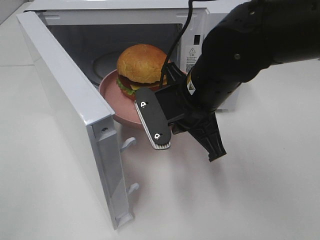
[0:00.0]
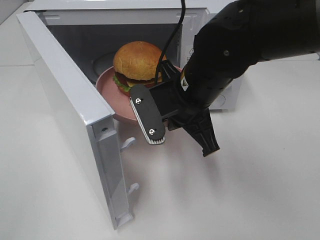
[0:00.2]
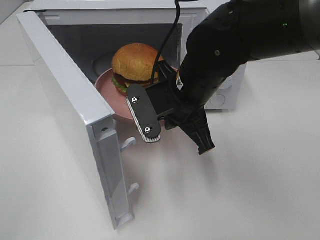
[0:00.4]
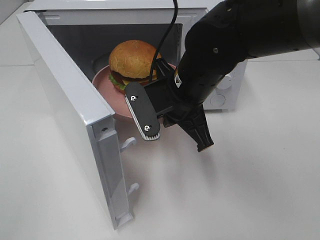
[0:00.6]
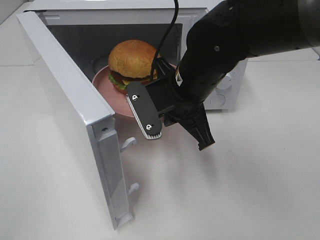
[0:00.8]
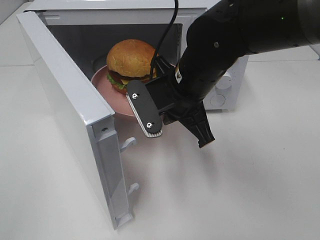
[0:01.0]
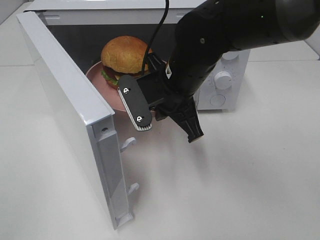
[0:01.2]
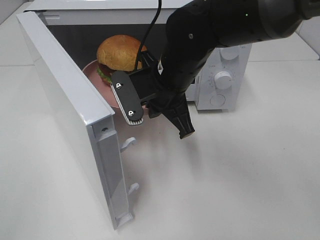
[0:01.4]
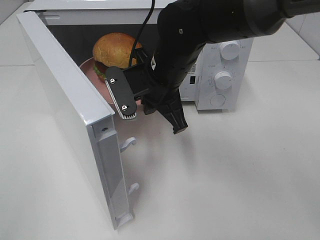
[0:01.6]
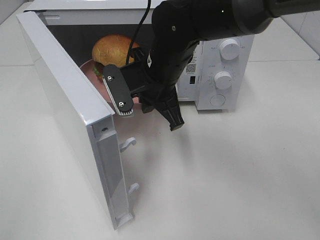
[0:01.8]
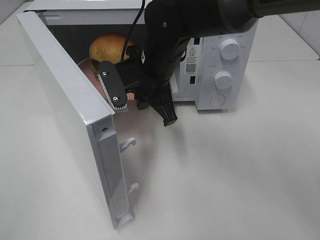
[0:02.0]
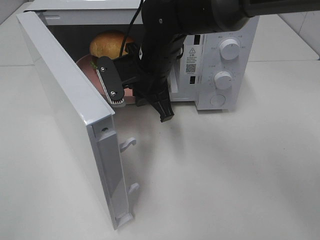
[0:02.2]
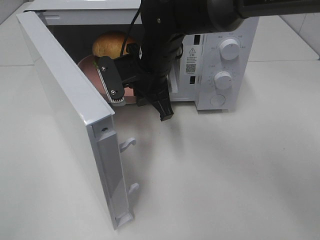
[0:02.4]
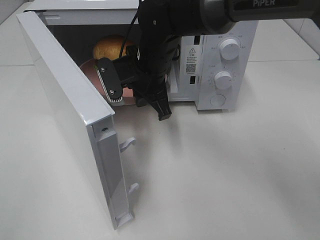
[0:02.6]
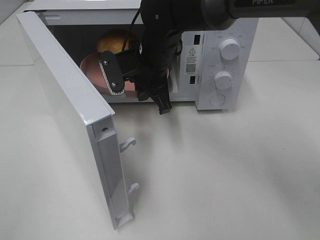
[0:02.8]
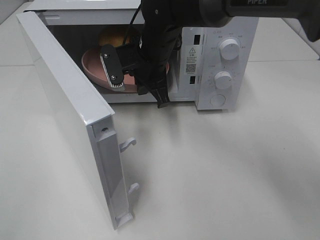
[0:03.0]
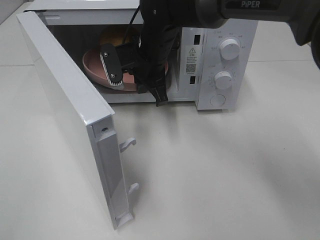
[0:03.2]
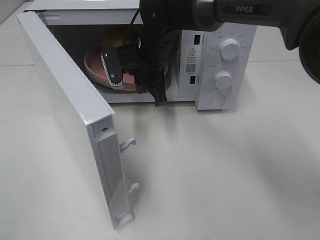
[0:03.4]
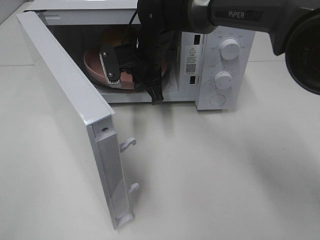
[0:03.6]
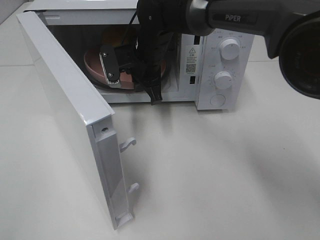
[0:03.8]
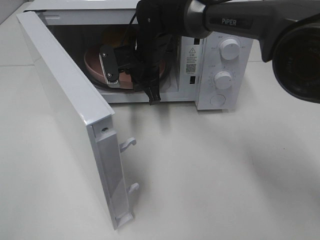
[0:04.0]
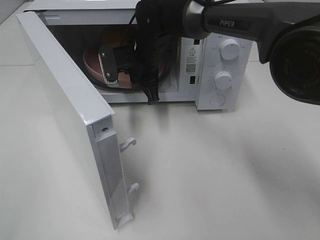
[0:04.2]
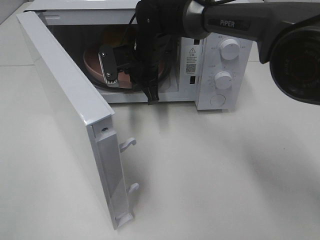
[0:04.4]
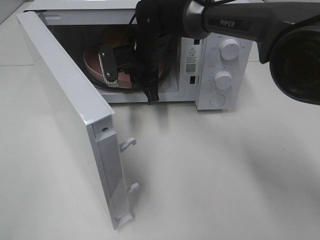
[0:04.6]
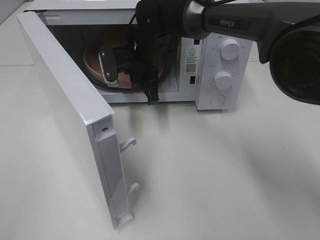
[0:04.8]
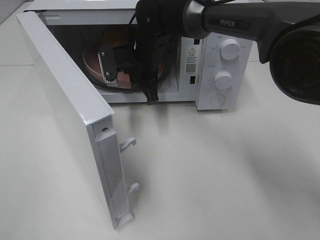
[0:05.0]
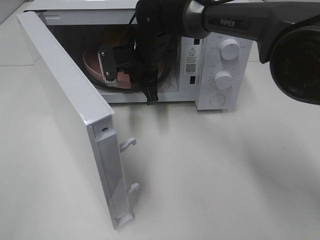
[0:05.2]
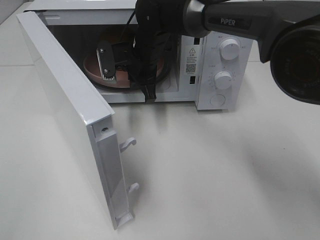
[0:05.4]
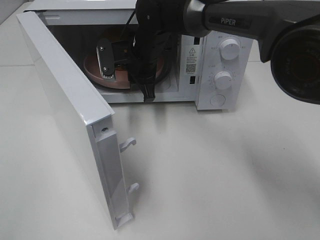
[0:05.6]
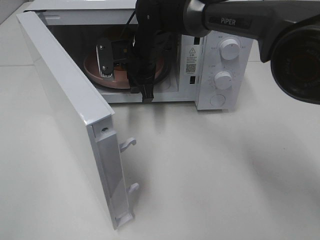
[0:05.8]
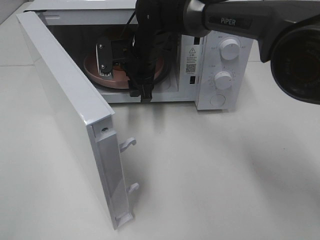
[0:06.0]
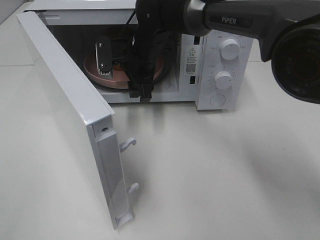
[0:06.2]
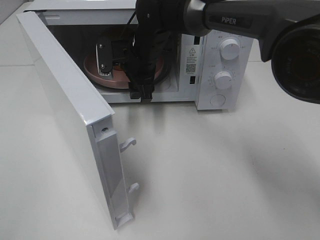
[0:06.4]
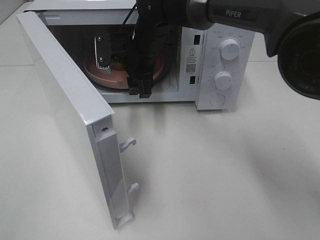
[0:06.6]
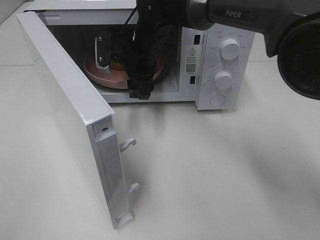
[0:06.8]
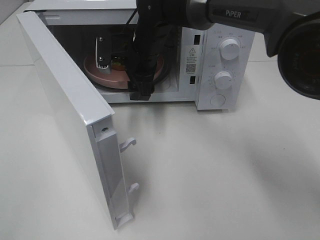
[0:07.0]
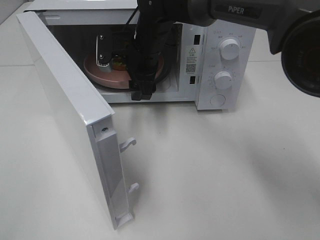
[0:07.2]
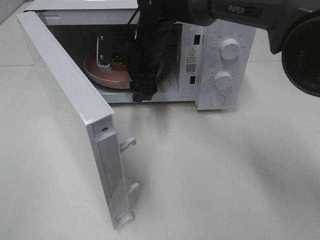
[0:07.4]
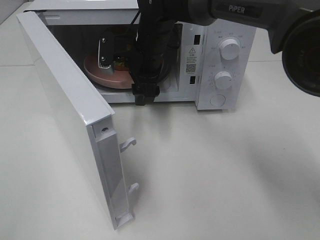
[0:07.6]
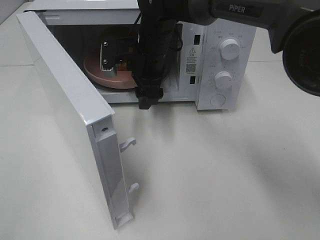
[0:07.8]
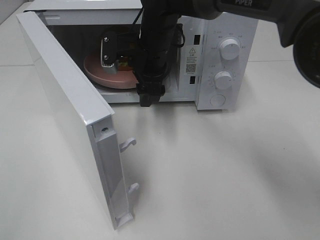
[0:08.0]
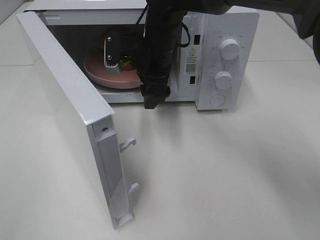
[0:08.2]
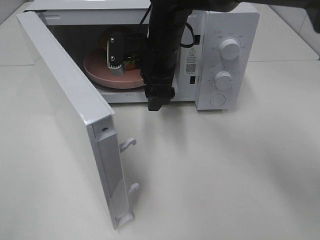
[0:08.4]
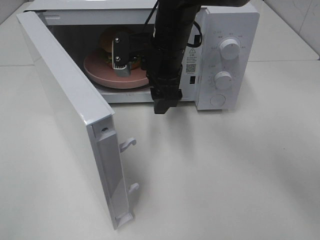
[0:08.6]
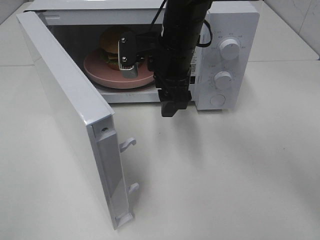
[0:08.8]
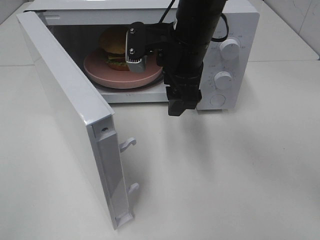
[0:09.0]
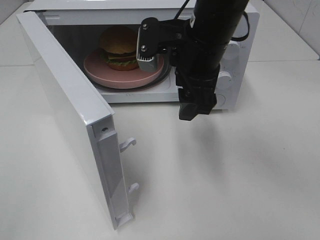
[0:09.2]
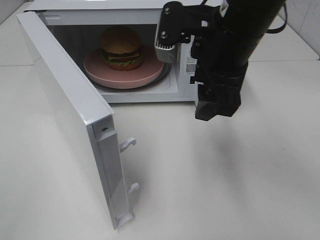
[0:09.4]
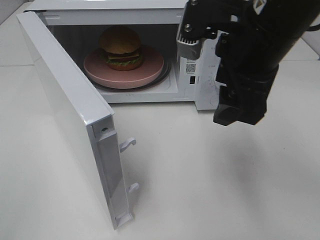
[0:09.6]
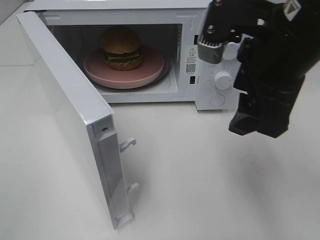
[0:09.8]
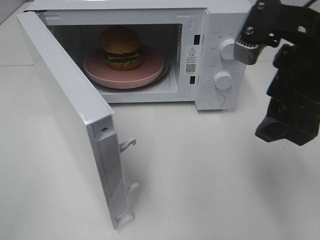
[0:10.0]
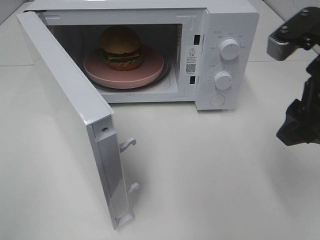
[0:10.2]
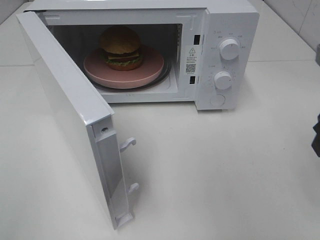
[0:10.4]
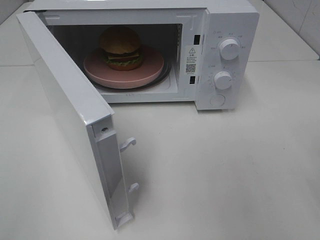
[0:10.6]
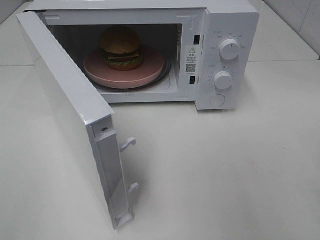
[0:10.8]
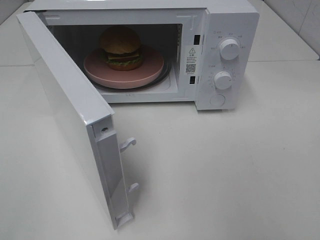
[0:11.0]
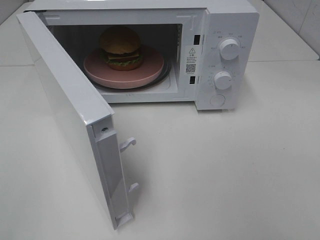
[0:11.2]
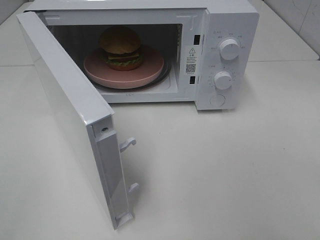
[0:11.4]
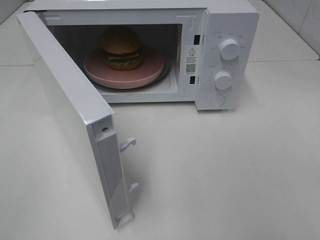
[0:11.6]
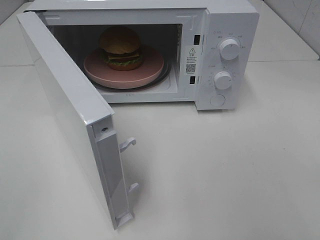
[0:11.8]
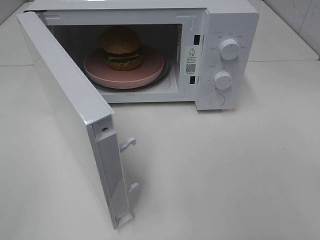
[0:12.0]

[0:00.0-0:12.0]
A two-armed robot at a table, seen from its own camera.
Task of the whole recording: Heat the burger.
Step, 0:00.0 to 0:05.6: Right hand: place the plate in the microwave.
0:00.0 to 0:01.6: The right gripper shifts about 5 cm forward.
0:01.6 to 0:03.0: The right gripper moves forward, about 5 cm.
0:03.0 to 0:04.4: The grippers stay close to where they were, moving slightly.
0:04.4 to 0:06.0: The right gripper opens its fingers.
0:06.0 to 0:07.6: The grippers make only small movements.
0:07.6 to 0:09.0: The right gripper is displaced backward, to the right and upward by roughly 10 cm.
0:09.0 to 0:10.4: The right gripper shifts roughly 25 cm to the right and backward.

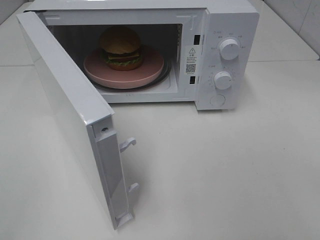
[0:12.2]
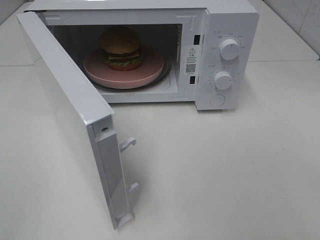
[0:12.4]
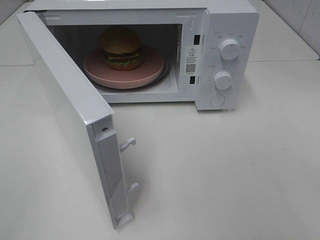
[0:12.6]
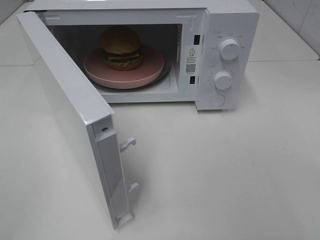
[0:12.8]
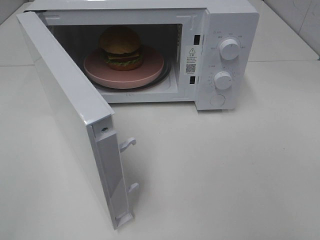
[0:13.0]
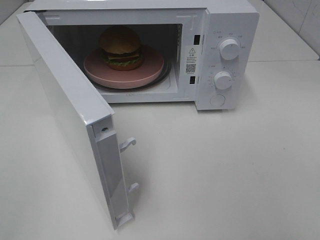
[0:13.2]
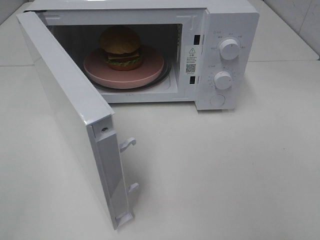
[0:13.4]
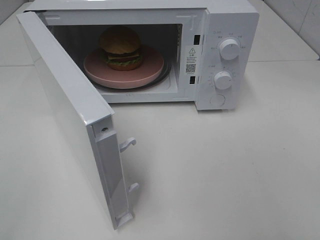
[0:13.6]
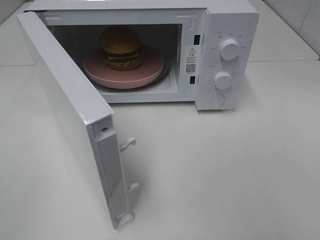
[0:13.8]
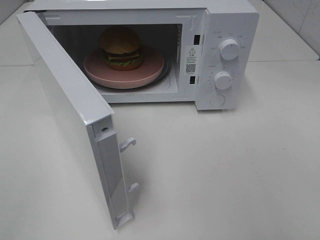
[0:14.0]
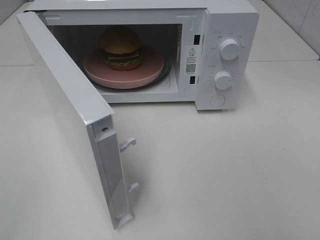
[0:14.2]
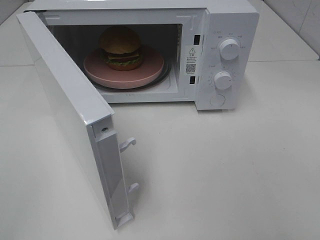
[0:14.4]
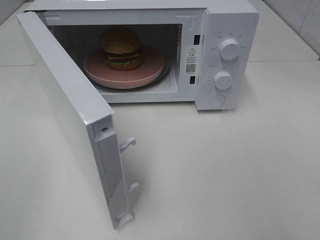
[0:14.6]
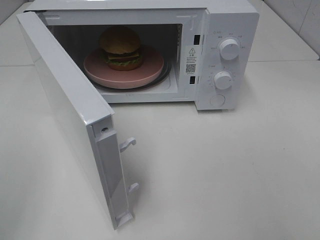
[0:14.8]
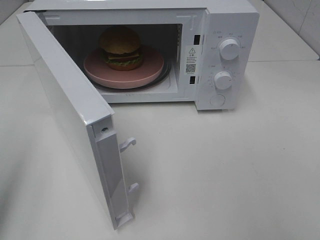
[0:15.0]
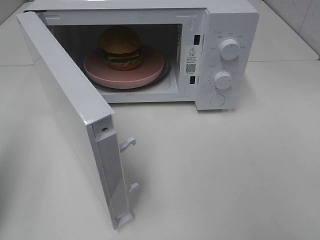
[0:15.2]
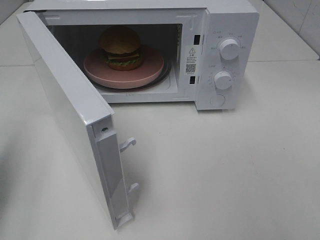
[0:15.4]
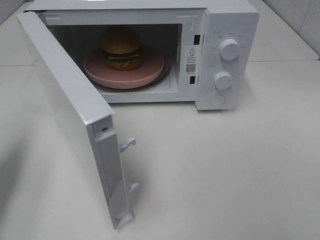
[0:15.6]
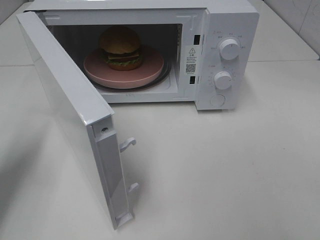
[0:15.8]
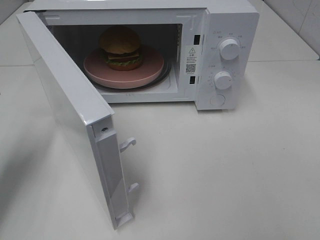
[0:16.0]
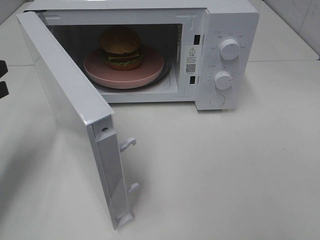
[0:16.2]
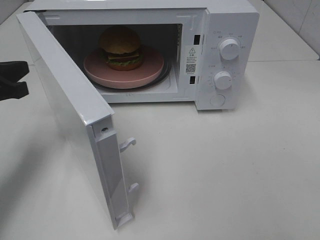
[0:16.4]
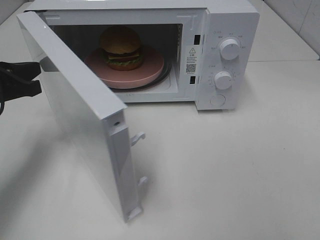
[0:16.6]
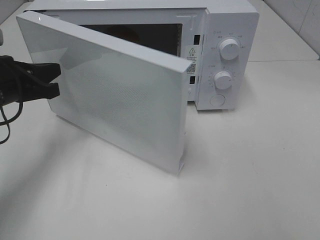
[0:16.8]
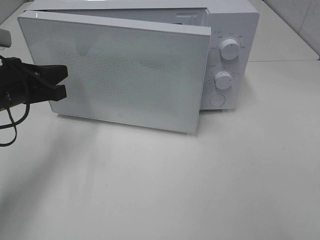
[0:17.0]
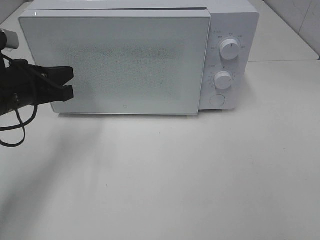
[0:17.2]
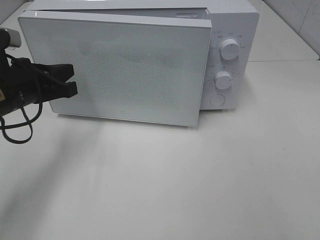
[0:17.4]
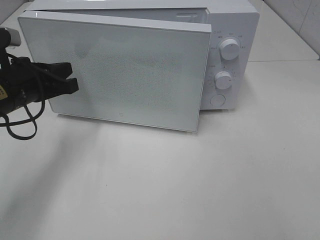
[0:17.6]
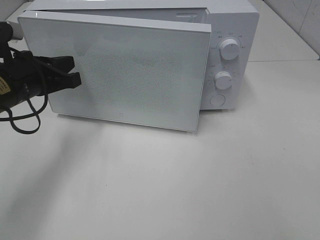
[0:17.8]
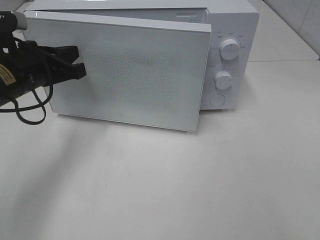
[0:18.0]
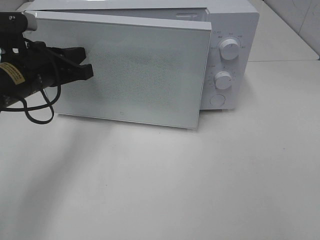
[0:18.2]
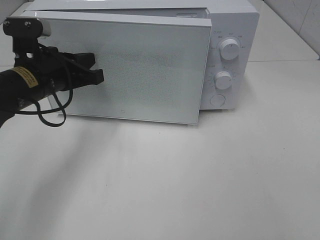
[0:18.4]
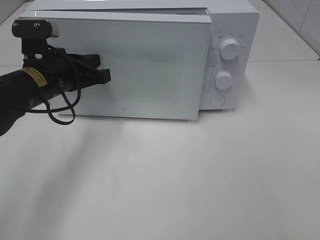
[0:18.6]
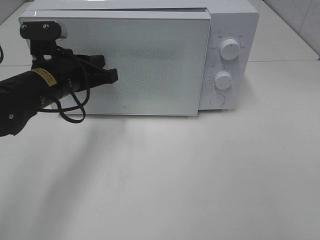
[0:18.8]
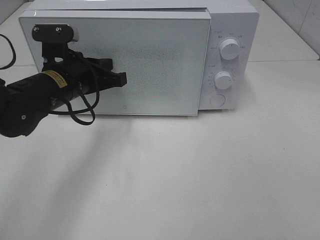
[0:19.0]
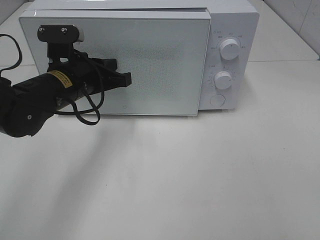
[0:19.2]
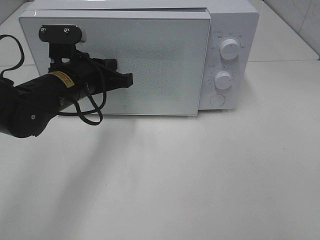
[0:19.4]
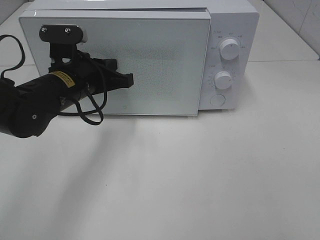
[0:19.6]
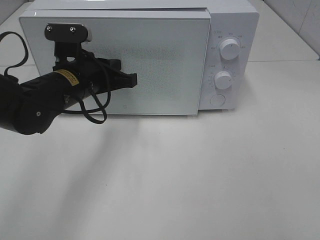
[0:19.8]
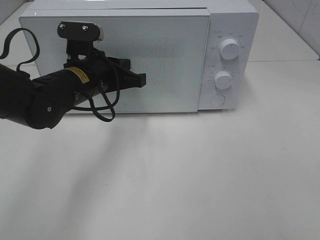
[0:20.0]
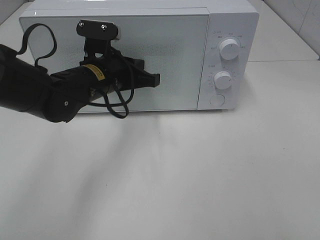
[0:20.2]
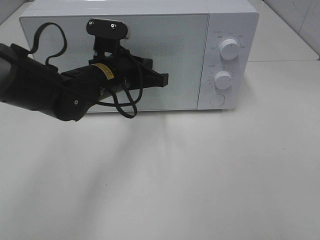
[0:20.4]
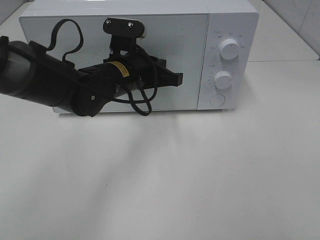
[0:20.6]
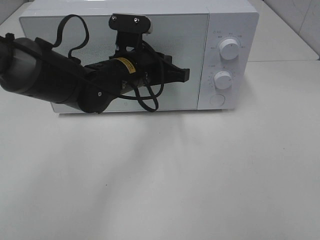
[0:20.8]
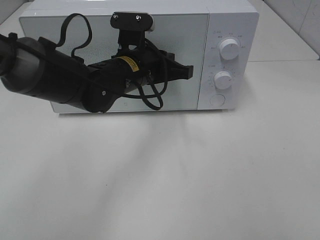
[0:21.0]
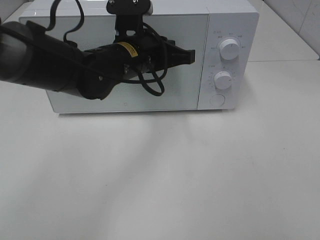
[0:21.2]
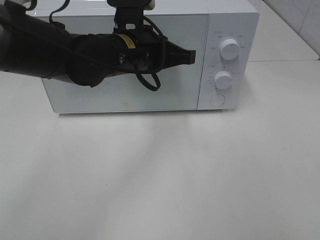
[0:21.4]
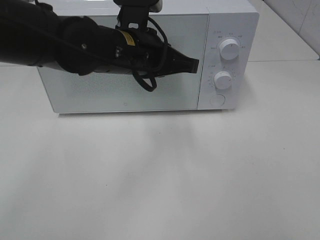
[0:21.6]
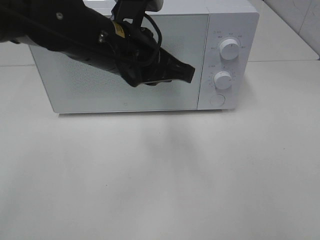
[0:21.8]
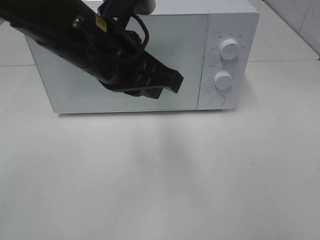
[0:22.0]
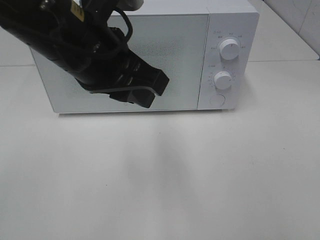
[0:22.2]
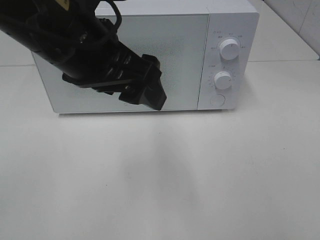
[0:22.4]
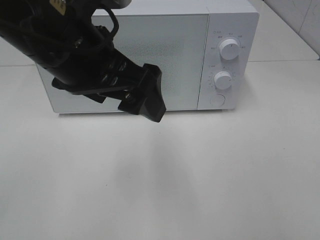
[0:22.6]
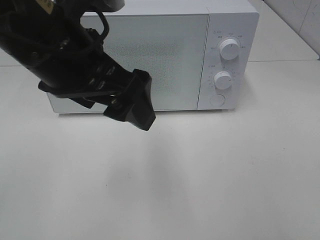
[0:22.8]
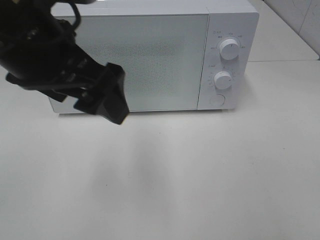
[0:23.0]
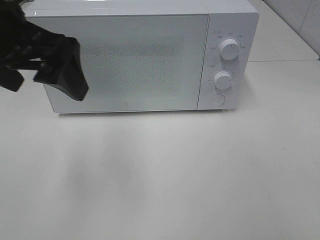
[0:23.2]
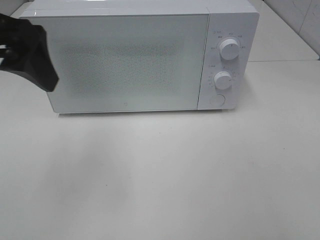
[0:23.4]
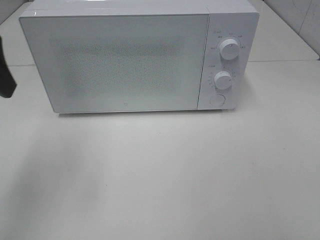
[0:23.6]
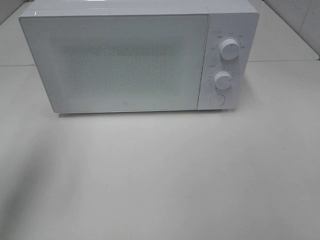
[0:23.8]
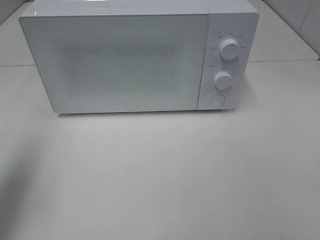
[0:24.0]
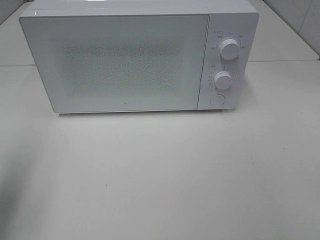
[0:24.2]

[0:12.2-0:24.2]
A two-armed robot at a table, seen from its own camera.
Task of the whole recording: Heat the burger.
Step, 0:12.2 to 0:20.4: Left hand: close the microwave door.
0:13.8 to 0:15.2: The left gripper shifts some 15 cm forward, and closes up.
0:15.2 to 0:16.6: The left gripper heads forward, downward and to the right, covering some 20 cm.
0:16.6 to 0:18.2: The left gripper shifts roughly 5 cm to the right.
0:18.2 to 0:19.8: The left gripper goes approximately 5 cm to the right.
0:19.8 to 0:21.2: The left gripper travels to the right by roughly 10 cm.
0:21.2 to 0:22.6: The left gripper travels backward, upward and to the left by about 15 cm, and opens up.
0:22.6 to 0:24.2: The left gripper moves to the left, approximately 25 cm.
